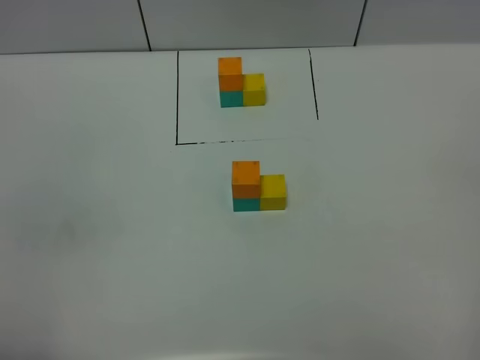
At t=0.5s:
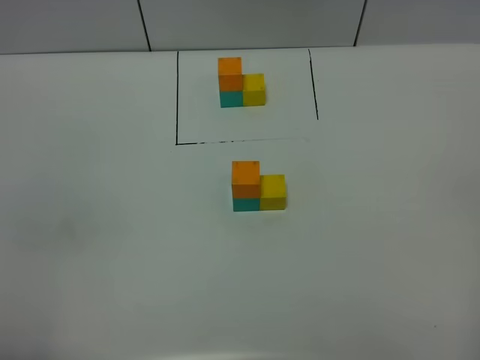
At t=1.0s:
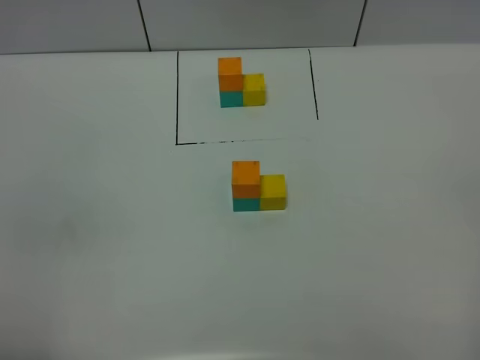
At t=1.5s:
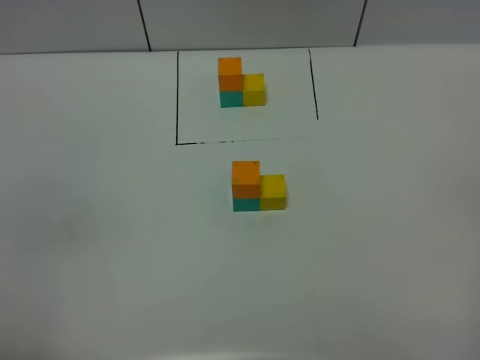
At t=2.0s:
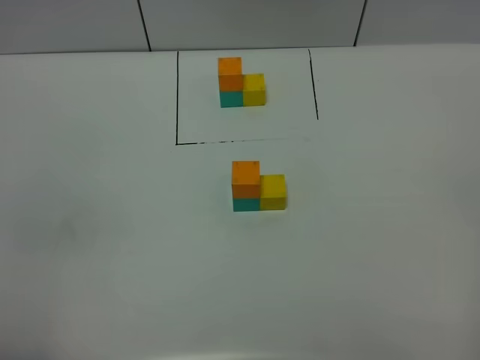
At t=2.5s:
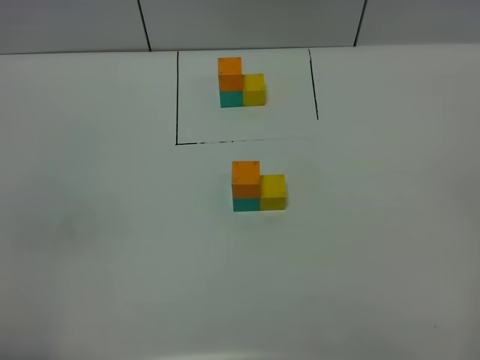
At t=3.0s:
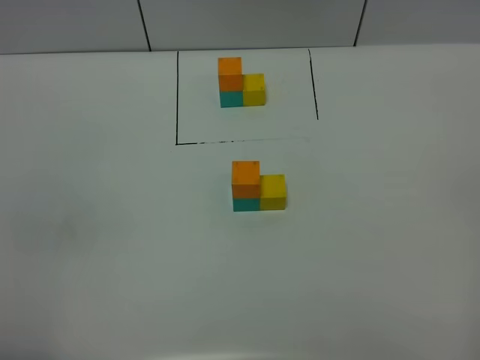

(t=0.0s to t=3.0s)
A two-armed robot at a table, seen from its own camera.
Task of the whole recording: According to the building block template in front, assemble the scattered blocks together.
t=1.5s - t=3.0s: The two grippers keep their place.

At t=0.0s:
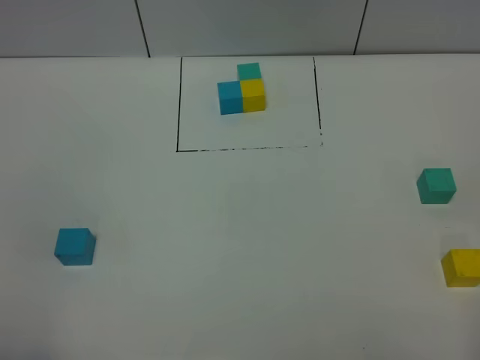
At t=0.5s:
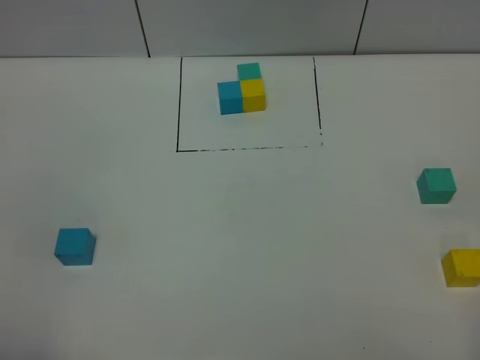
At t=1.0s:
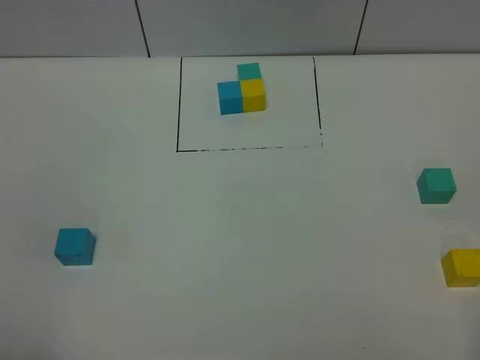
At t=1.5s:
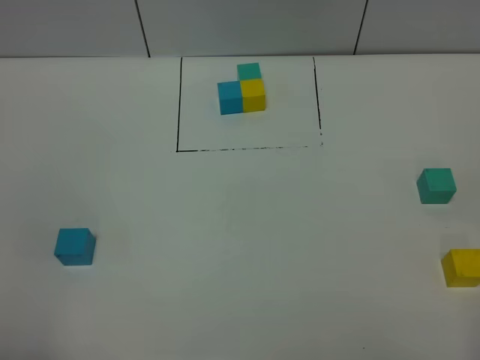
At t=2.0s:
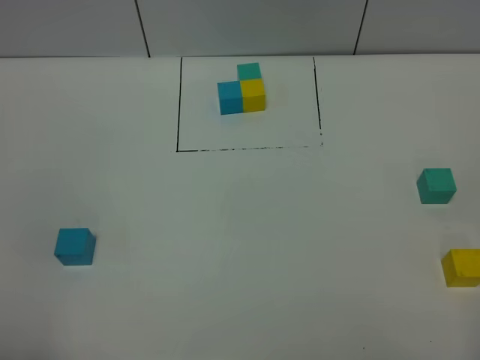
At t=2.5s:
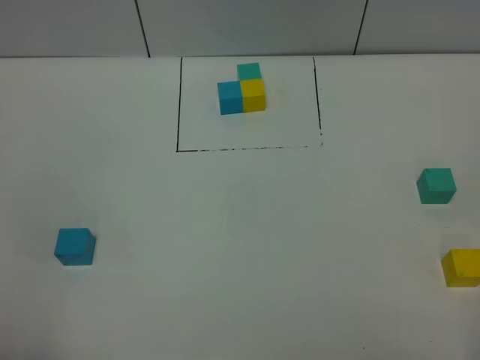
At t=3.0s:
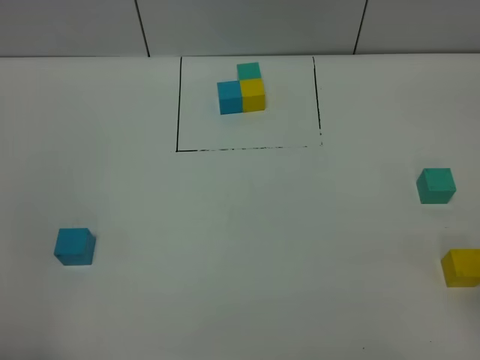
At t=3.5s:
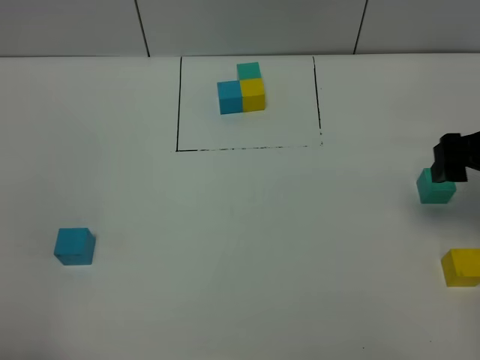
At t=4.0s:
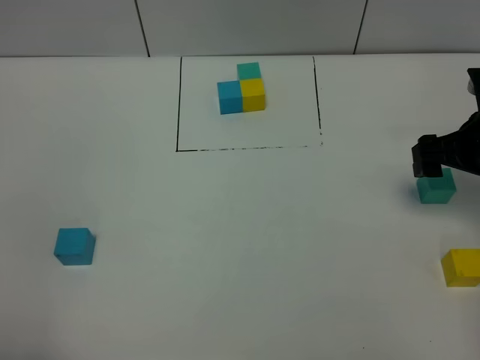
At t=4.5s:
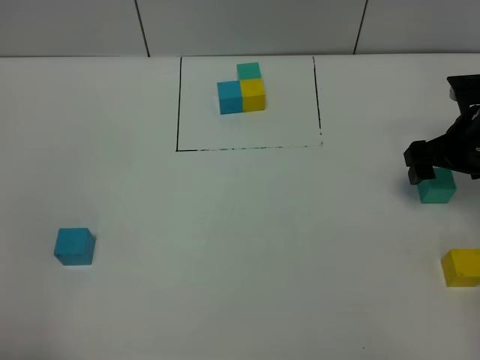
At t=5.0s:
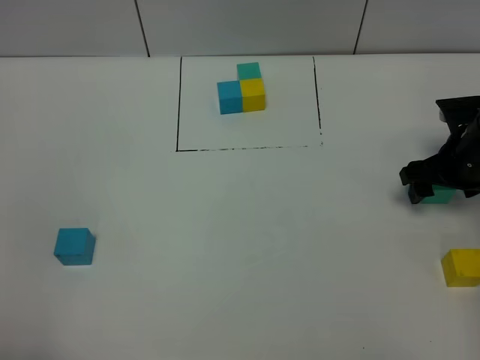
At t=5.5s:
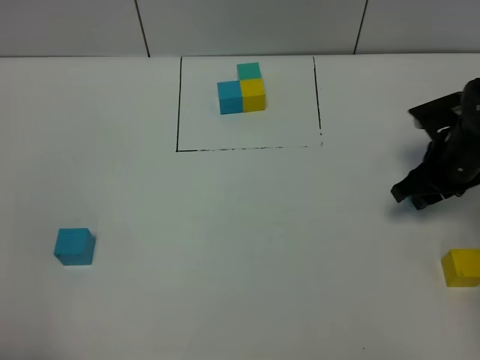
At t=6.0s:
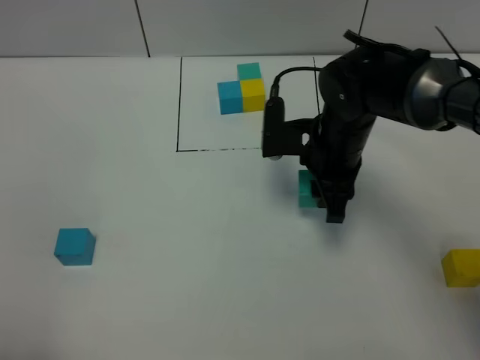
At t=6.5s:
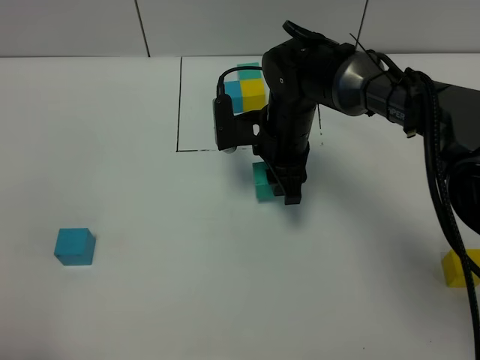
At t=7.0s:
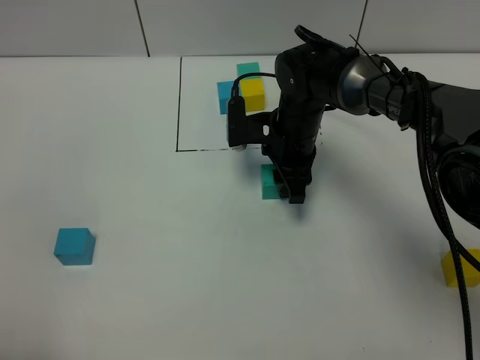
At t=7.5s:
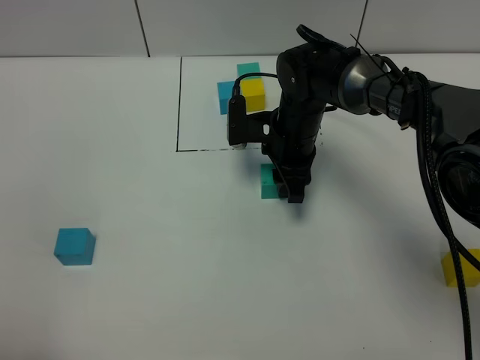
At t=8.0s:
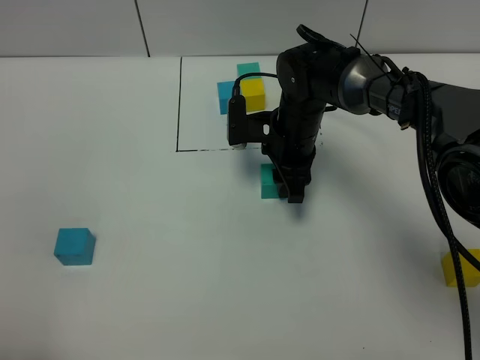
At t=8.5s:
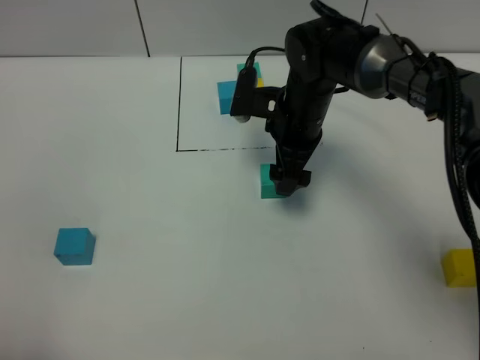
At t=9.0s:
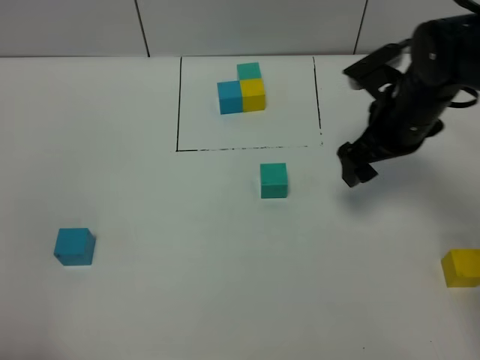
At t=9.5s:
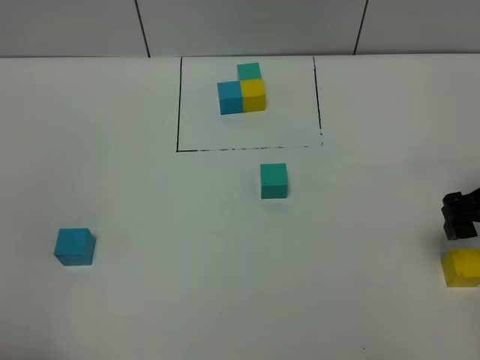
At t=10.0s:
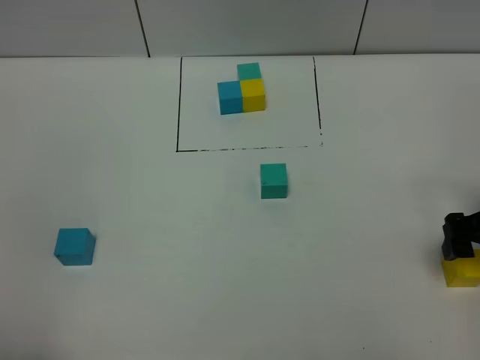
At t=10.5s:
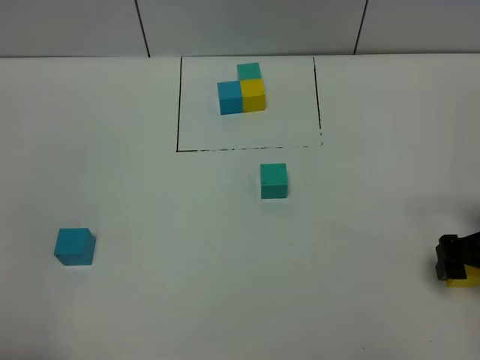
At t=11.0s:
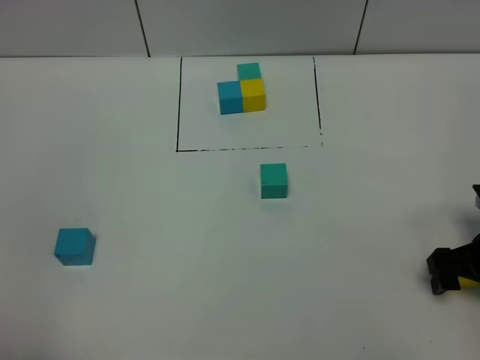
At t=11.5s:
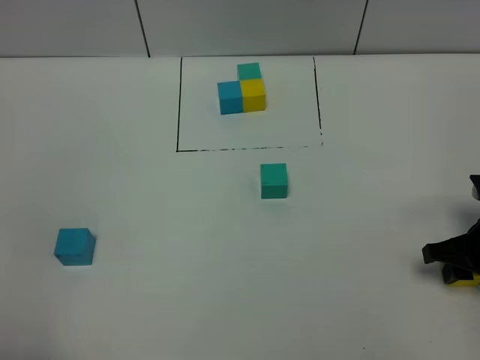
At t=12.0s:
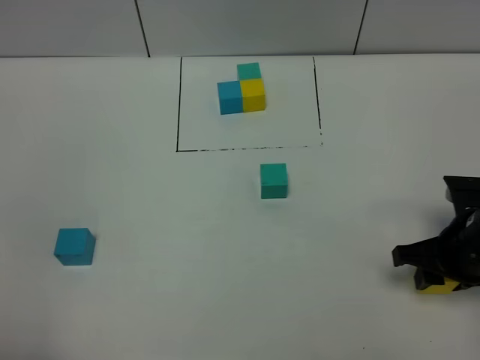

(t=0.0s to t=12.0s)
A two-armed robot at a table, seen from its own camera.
Task of the whole recording: According to the building block template in front, assemble the scattered blocks together.
Step, t=0.0s - t=8.0s: Put the green build block in the center of the table.
t=0.0s - t=2.0s: The two grippers keep their place.
t=2.0s - t=4.0s: The right gripper is displaced forward by about 35 cm.
t=4.0s - t=6.0s: The right gripper travels to the left by approximately 20 cm, and closes up.
t=6.0s - t=8.0s: The right gripper moves forward, approximately 5 cm.
t=8.0s - t=10.0s: The right gripper shifts roughly 30 cm to the right and backward, and opens its fingers.
t=10.0s - t=12.0s: The right gripper travels to the left by roughly 5 cm, and closes.

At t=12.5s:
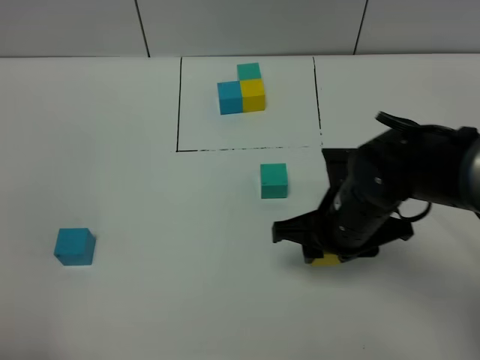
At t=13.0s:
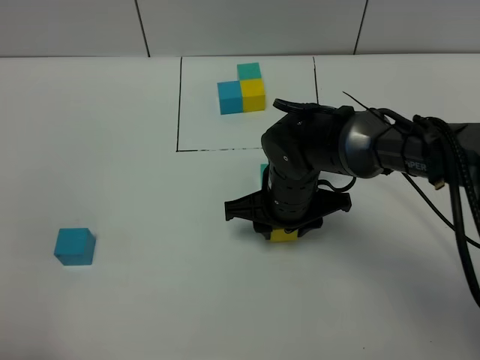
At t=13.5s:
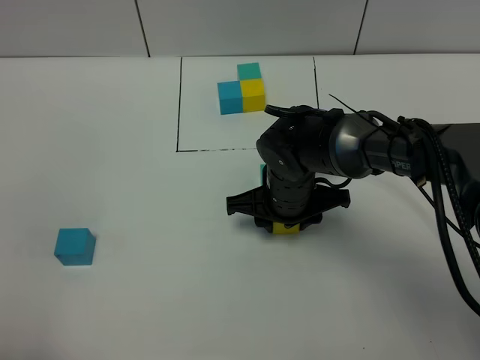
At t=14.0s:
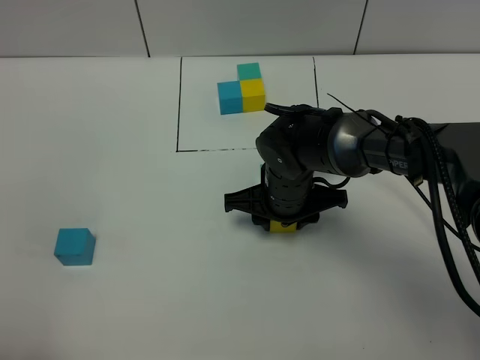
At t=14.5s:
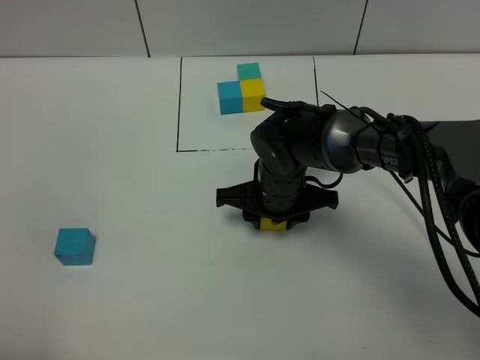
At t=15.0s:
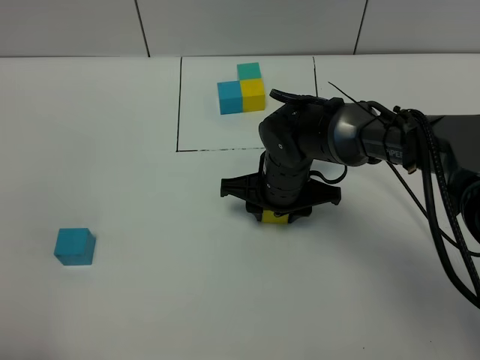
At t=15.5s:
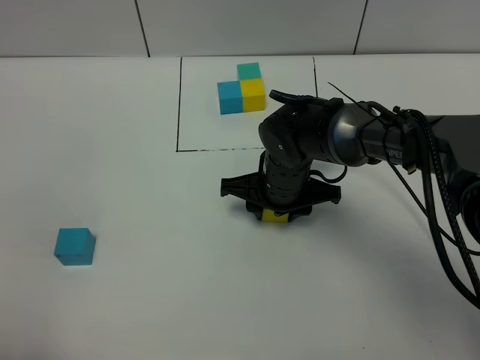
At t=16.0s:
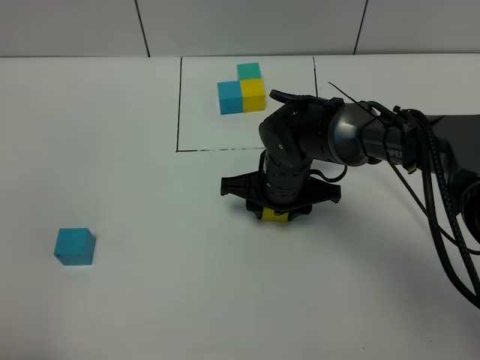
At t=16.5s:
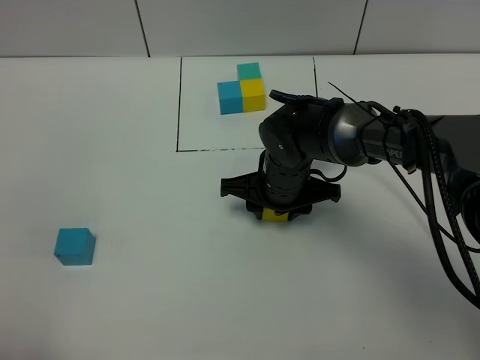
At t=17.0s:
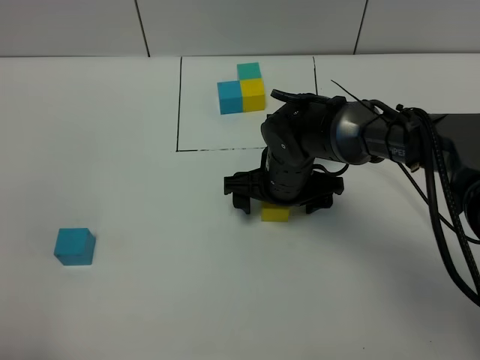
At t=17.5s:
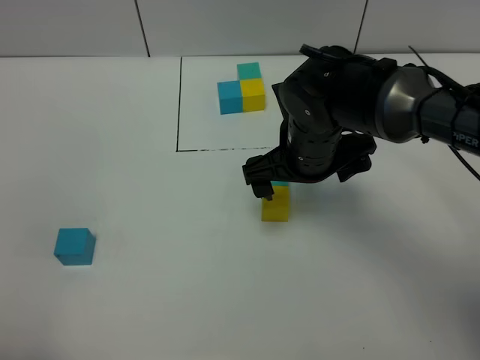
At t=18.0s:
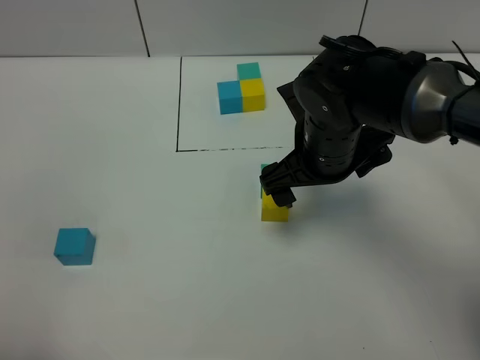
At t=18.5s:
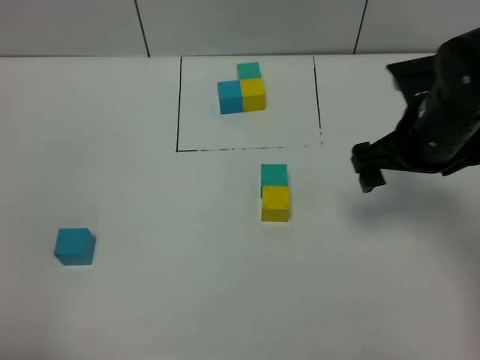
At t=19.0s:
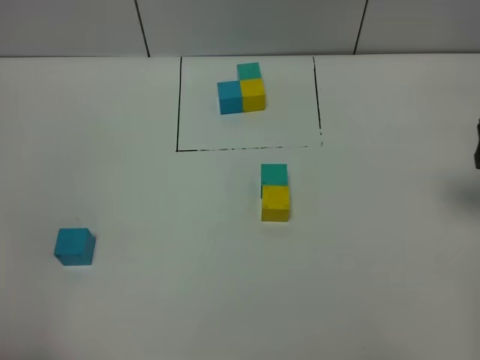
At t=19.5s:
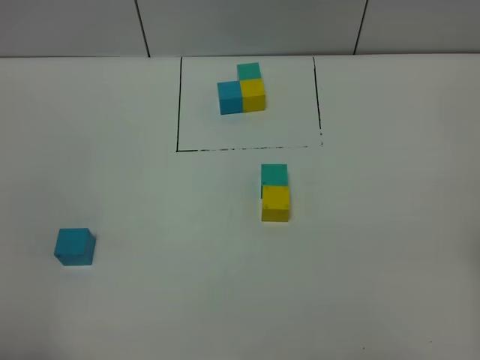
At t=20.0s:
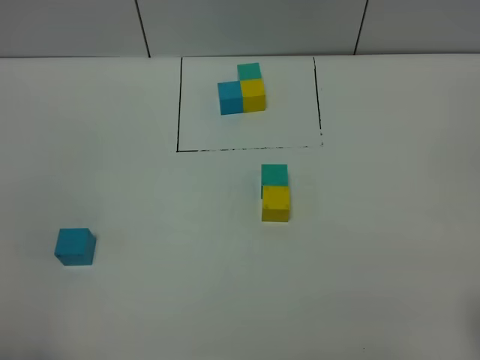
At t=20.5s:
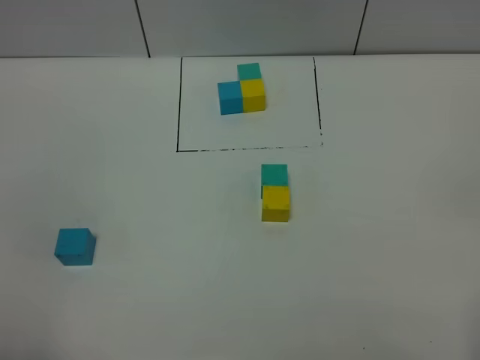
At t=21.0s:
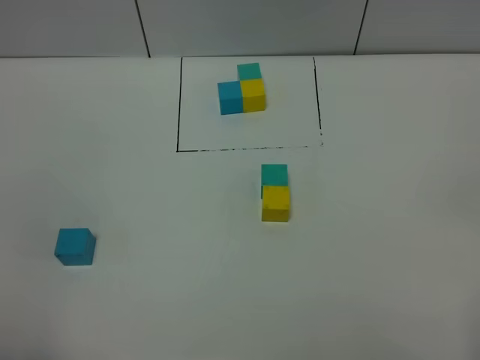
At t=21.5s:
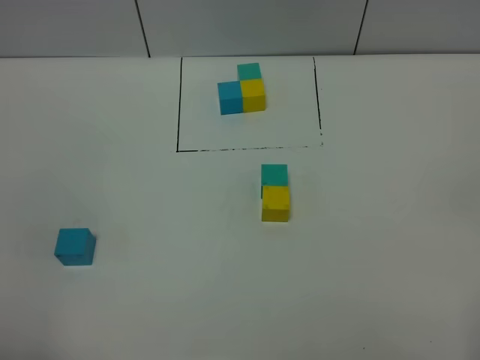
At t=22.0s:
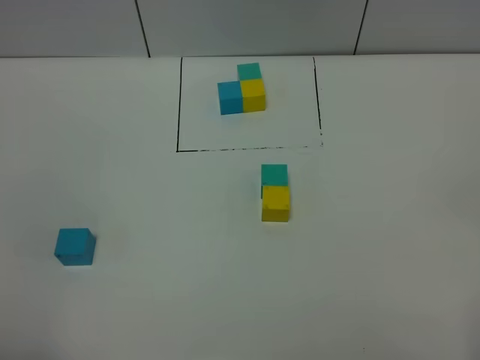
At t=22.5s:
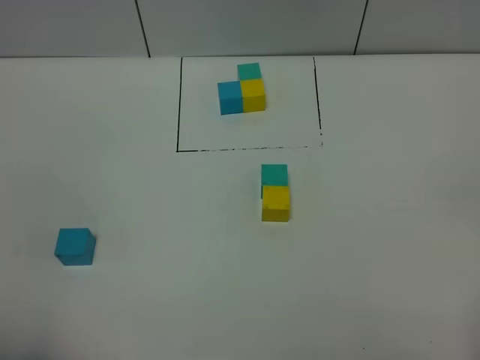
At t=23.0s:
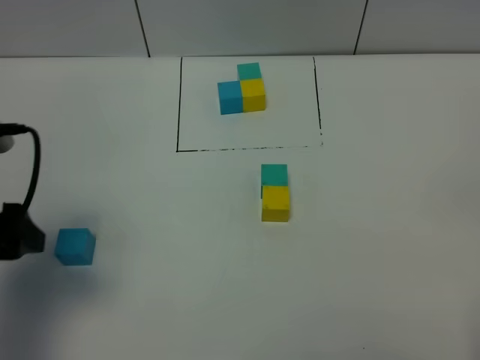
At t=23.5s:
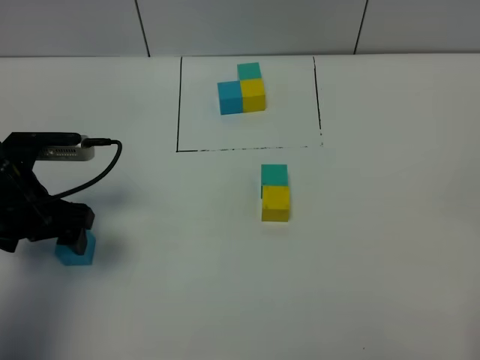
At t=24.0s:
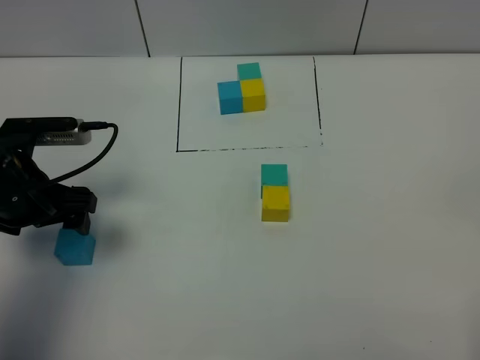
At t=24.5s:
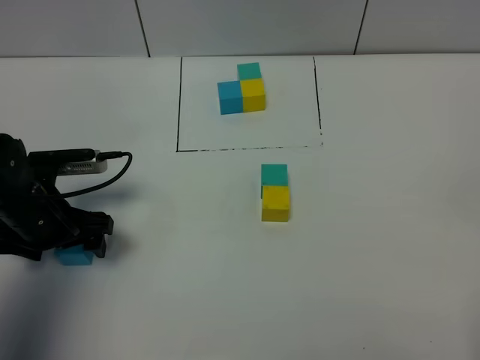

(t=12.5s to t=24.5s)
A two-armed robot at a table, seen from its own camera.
Task of the whole recording: According to the building block template in front, assemble the scattered blocks together.
Step, t=12.5s - t=16.5s: Put the yellow build block on the behind of the green build block.
t=12.5s - t=14.5s: The right gripper goes some 10 cm forward and to the left.
t=14.5s - t=16.5s: There are only small adjustments of the grippers.
t=16.5s - t=18.5s: The right gripper moves to the right and upward, about 20 cm, and opens its fingers.
t=18.5s - t=20.5s: The right gripper goes about 30 cm backward.
t=22.5s - t=24.5s: The left gripper heads forward and downward, covering some 30 cm.
